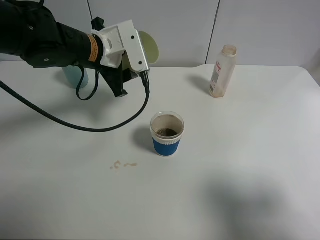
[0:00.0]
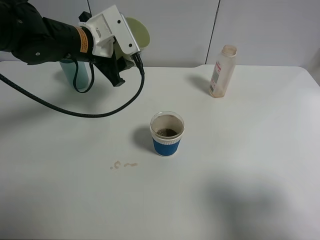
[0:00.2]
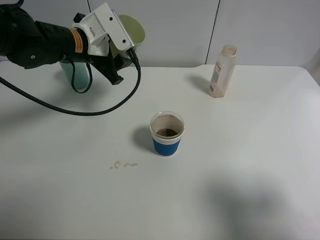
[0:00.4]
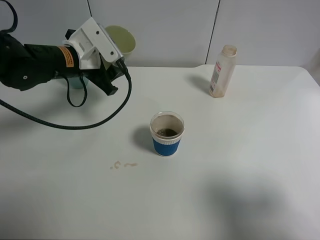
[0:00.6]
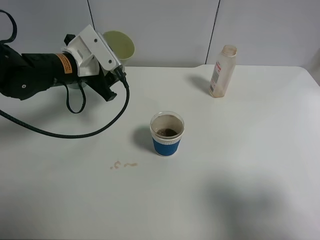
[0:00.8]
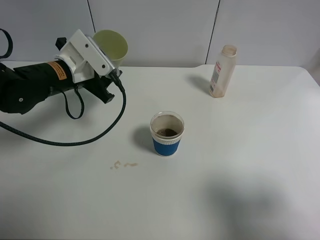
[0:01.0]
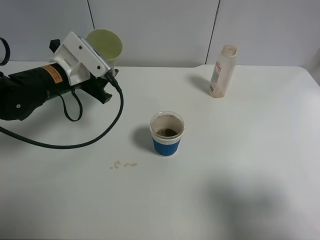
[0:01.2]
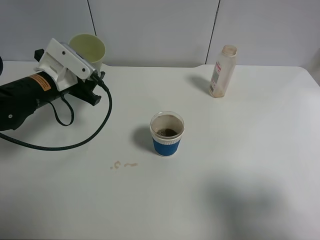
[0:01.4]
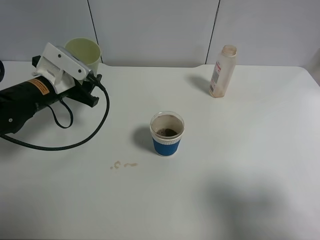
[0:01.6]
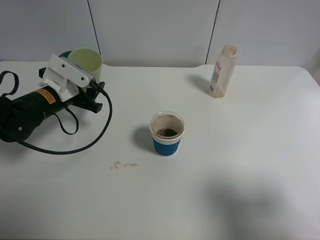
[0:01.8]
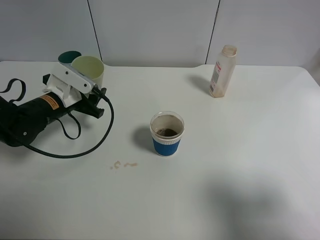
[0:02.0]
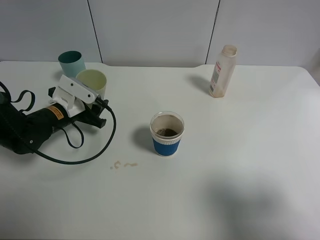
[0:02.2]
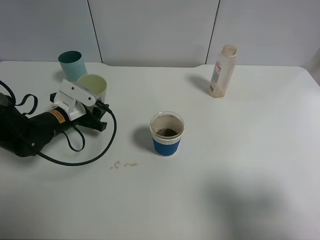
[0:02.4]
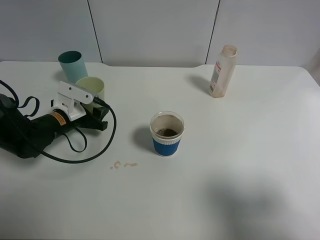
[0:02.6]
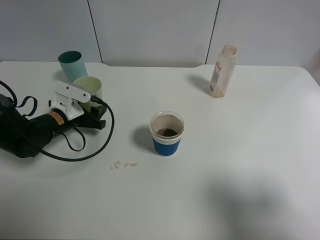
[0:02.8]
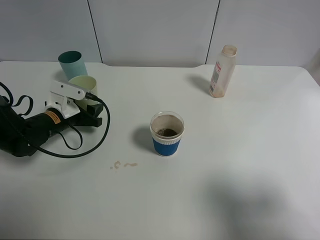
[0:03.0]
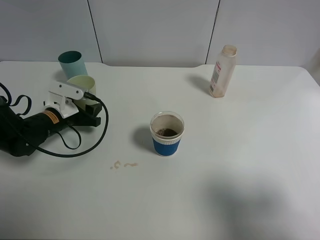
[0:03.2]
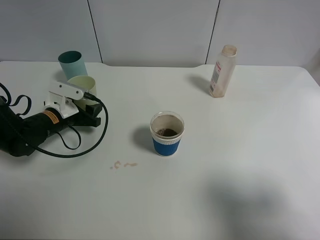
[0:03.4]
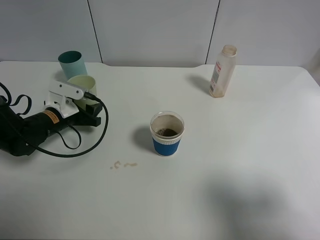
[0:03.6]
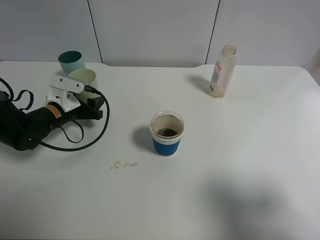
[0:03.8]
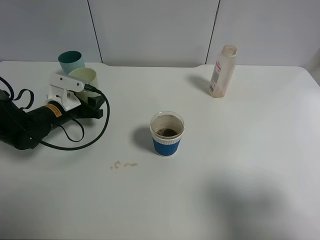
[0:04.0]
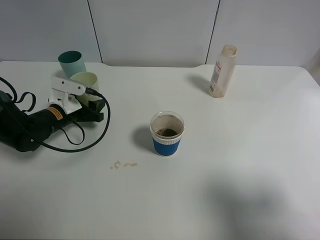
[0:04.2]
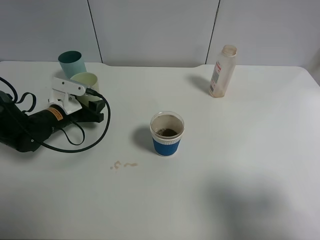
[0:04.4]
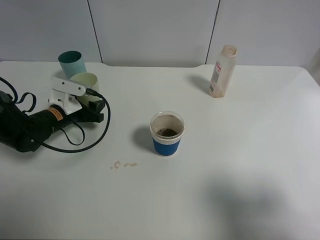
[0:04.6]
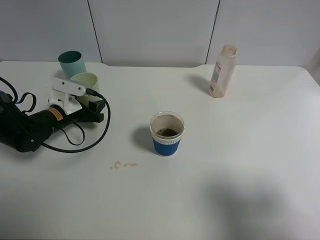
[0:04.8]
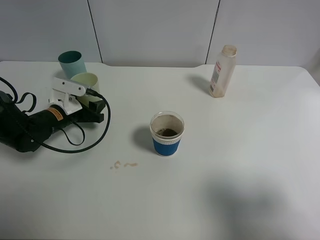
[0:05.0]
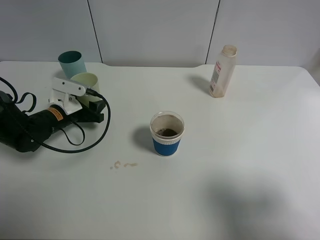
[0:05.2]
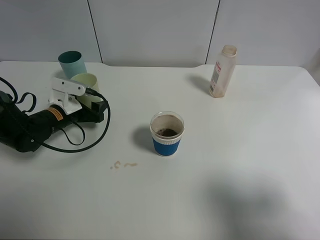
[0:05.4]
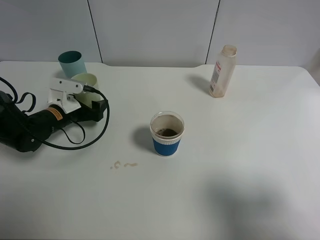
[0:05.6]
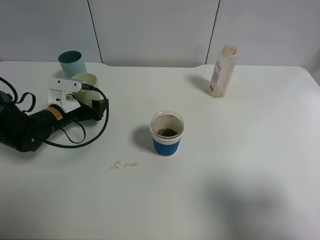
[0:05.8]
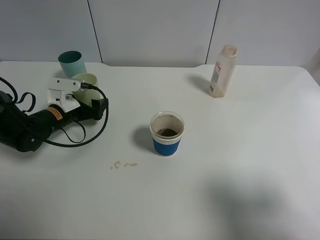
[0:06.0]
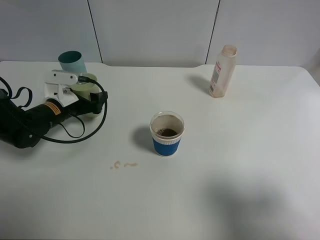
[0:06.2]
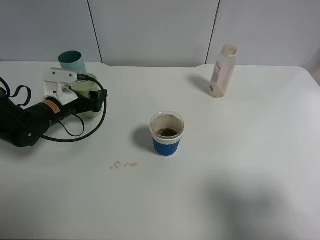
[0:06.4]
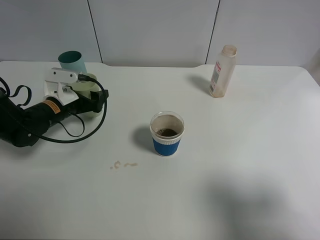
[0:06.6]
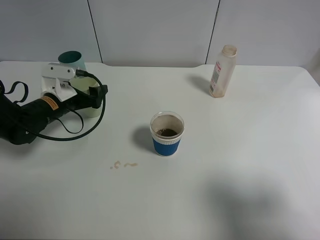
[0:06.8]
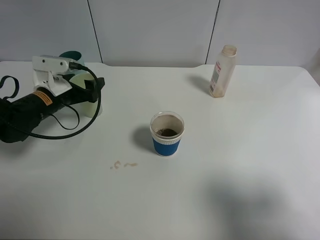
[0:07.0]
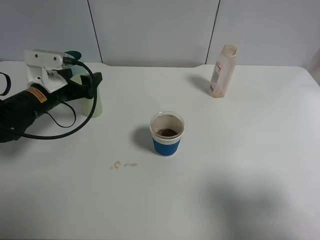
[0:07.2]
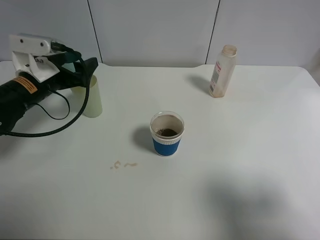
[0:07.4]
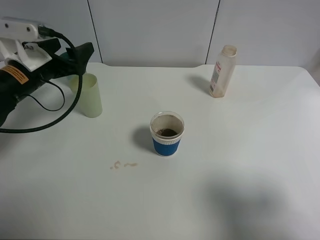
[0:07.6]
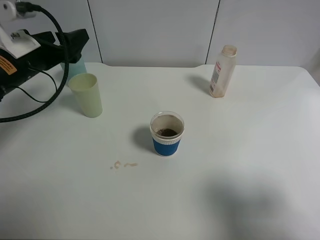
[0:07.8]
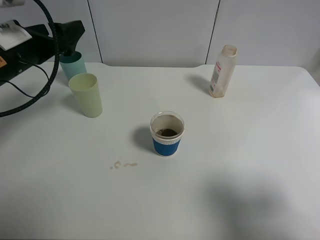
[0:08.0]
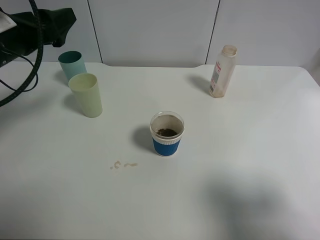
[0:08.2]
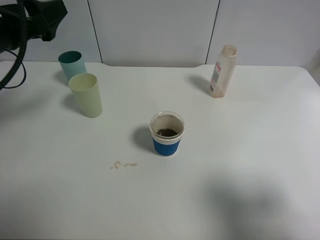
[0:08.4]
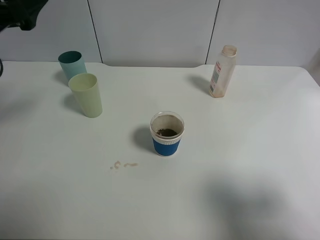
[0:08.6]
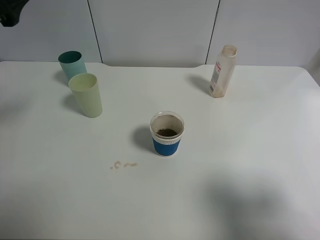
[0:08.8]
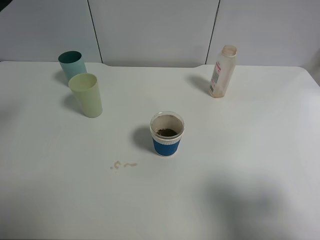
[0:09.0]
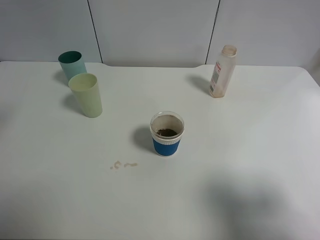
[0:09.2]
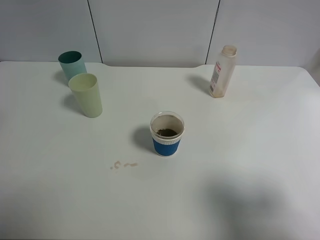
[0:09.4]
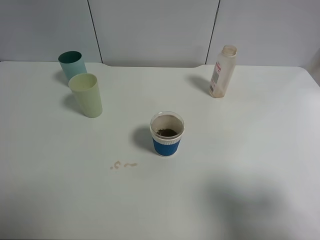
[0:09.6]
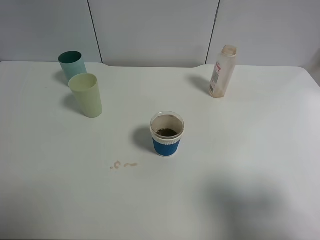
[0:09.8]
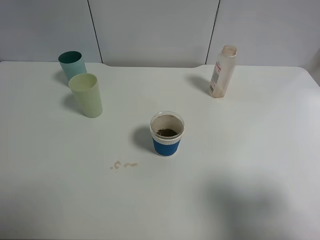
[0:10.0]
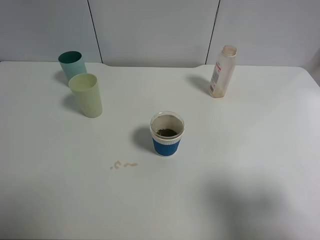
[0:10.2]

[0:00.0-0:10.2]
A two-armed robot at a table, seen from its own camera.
Task of the whole recording: use a clamp to hold the bottle of the drink, pour the beverage into a random cup, then clamp the cup containing the drink and pour the drink into another random cup.
Step, 0:00.0 to 0:05.2: Place the green plastic cup on the table with left gripper.
0:00.0 to 0:01.4: The left gripper moves to the left and downward, some 10 cm.
0:01.4 to 0:03.0: The left gripper heads downward, covering approximately 10 cm.
0:03.0 to 0:04.4: There are only small adjustments of the grippers.
0:04.4 to 0:05.8: The left gripper opens its fingers.
0:05.8 to 0:07.2: The left gripper is displaced upward by approximately 10 cm.
0:07.2 to 0:08.8: The left gripper moves upward and backward, roughly 20 cm.
0:08.8 to 0:10.2: The left gripper shifts some 20 cm backward.

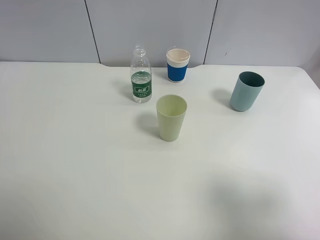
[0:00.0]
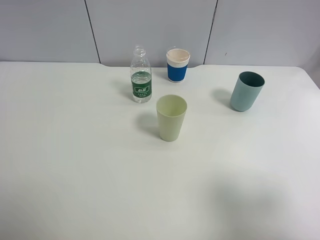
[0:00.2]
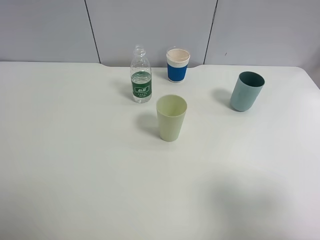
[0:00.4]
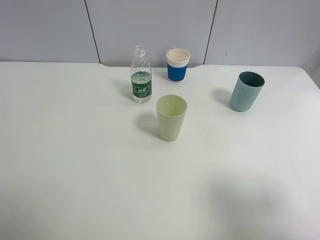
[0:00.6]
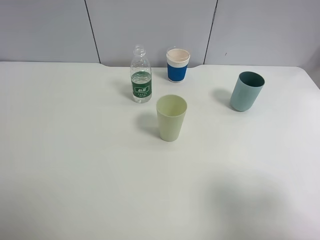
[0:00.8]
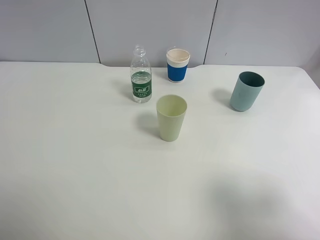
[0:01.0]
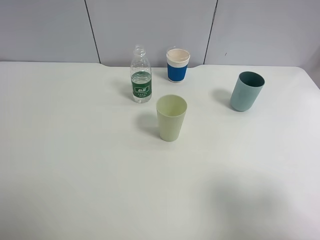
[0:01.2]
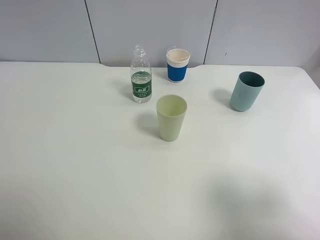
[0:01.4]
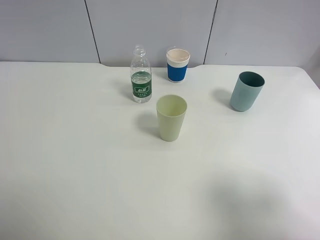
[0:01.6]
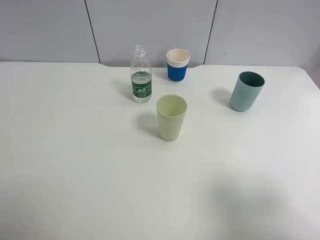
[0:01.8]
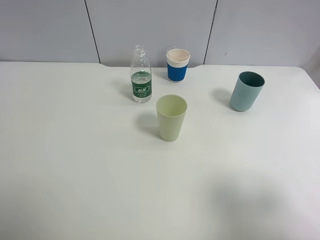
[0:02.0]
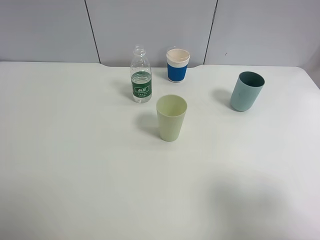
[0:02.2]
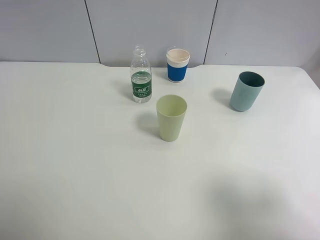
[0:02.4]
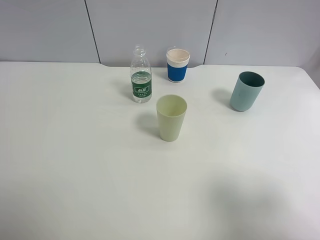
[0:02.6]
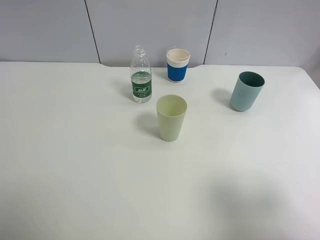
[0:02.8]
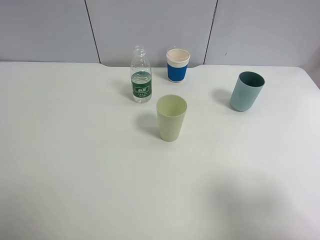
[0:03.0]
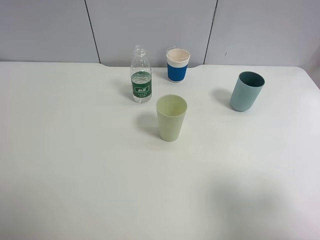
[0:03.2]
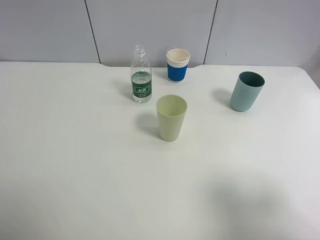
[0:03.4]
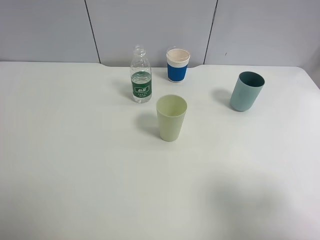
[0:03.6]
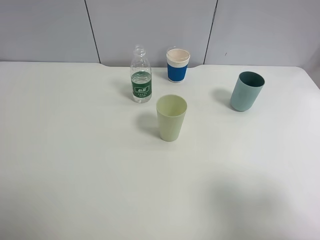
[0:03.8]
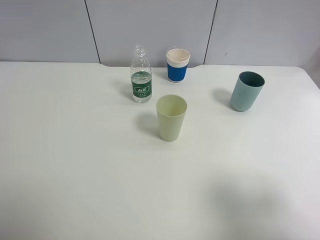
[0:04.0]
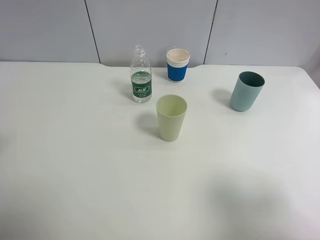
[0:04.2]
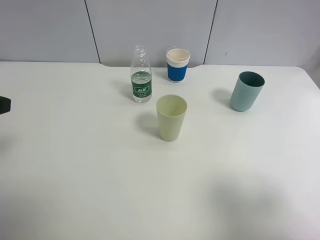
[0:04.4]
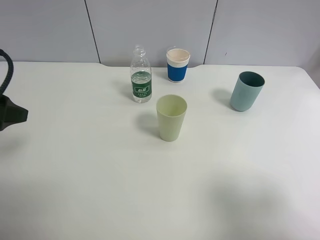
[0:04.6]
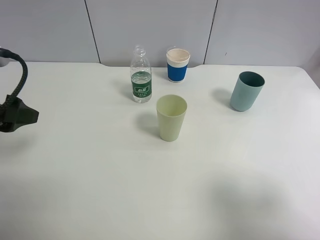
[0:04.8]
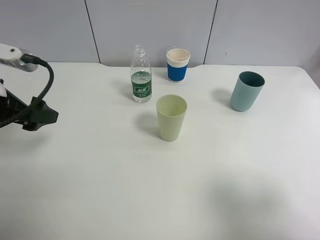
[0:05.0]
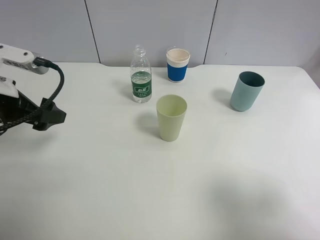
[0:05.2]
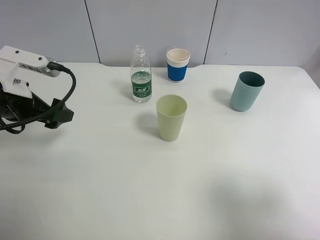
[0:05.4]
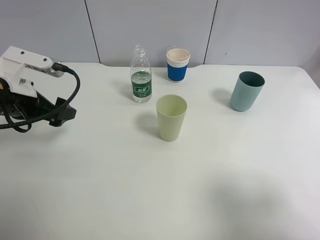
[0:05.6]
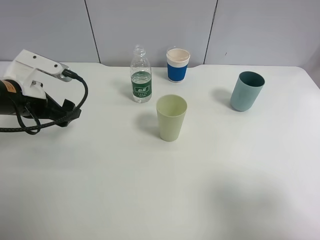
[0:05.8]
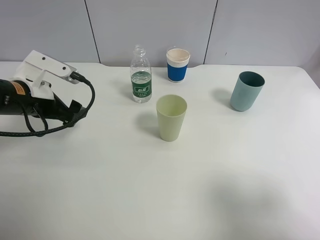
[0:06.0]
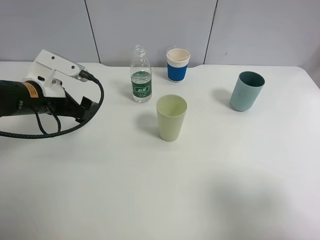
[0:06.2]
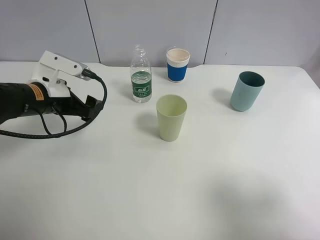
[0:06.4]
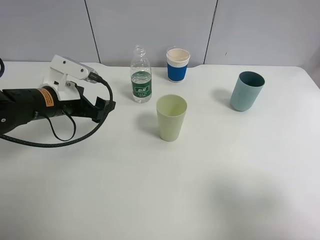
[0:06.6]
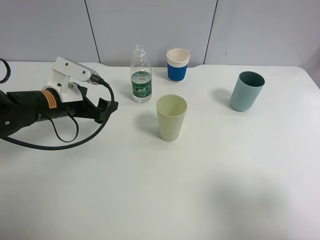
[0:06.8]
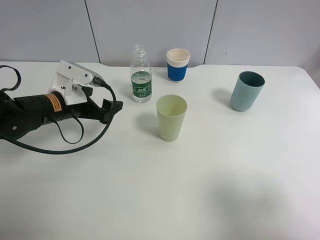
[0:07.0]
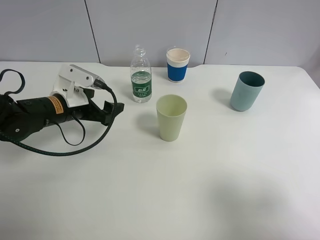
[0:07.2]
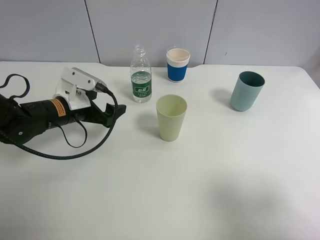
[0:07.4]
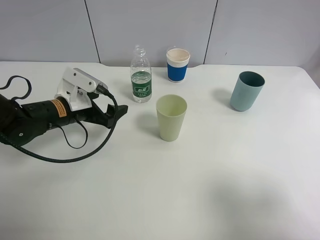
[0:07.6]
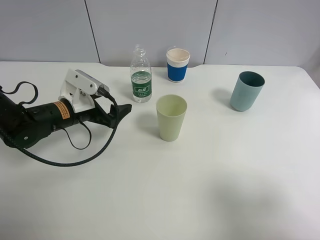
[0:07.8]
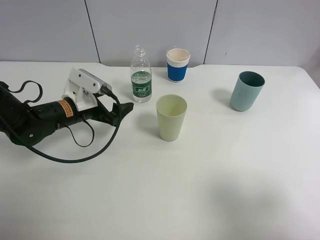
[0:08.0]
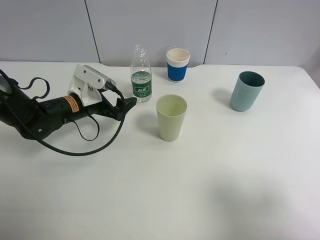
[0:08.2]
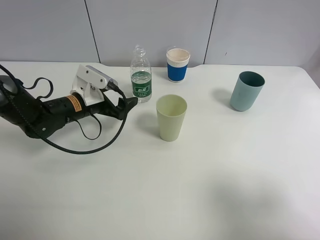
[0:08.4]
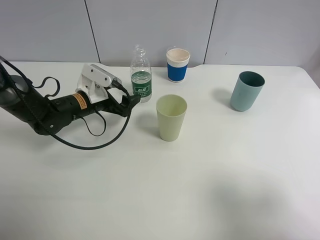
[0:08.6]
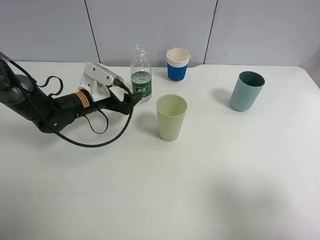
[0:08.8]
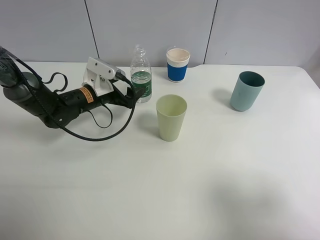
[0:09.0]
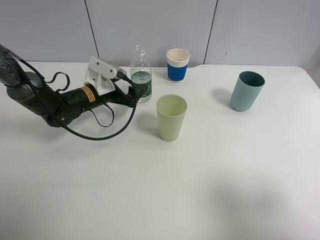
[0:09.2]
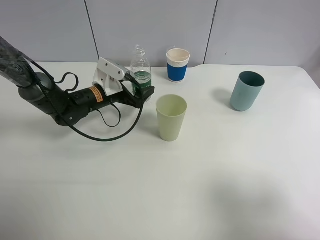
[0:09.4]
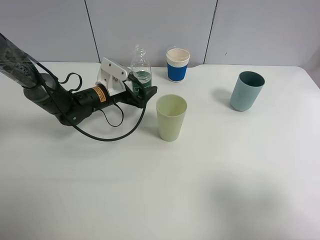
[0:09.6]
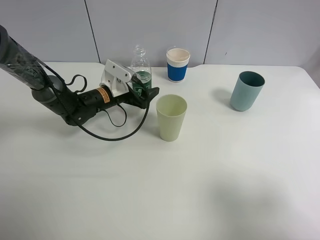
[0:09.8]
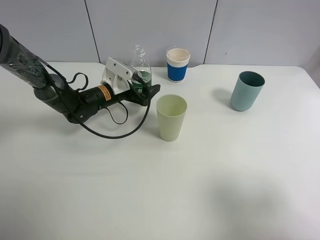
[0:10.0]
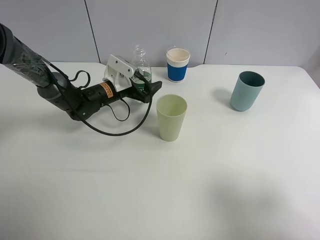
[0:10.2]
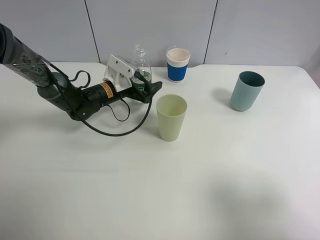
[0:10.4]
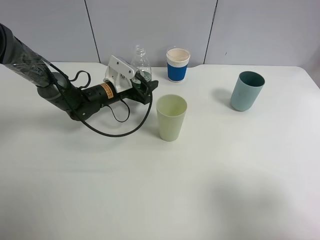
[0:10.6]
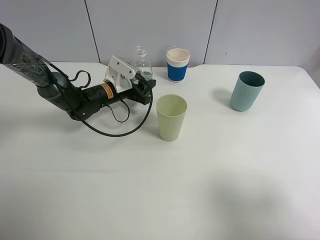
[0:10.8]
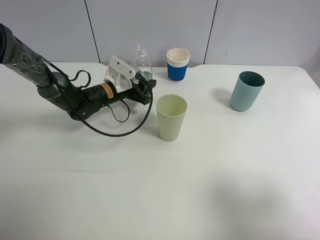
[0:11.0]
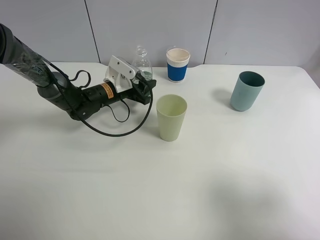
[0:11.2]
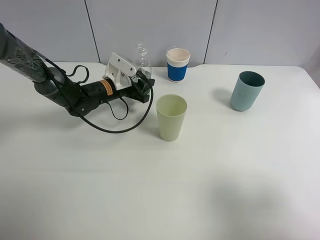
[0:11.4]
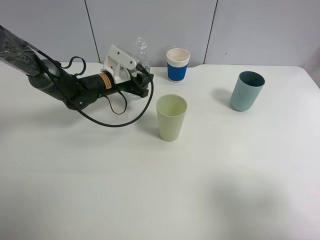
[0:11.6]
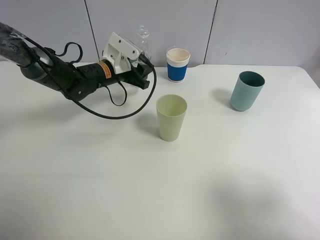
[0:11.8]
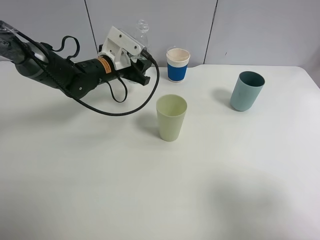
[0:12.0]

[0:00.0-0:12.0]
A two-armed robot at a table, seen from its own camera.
Task of the whole recording: use a clamp to hold the bottle of the drink, pour the beverage into a random cup, then clamp the cup containing the drink and pour the drink into another random cup.
0:00.0 to 0:03.0: Neither gripper changes place.
0:04.4 to 0:06.0: The left gripper goes some 15 cm forward, downward and to the right.
0:06.0 to 0:07.6: The left gripper heads downward, covering about 5 cm.
0:07.6 to 0:09.0: The left gripper is displaced forward by about 10 cm.
0:09.0 to 0:10.4: The left gripper ends up about 5 cm from where it was.
0:10.4 to 0:12.0: The left gripper moves upward, approximately 5 cm, and closes up.
